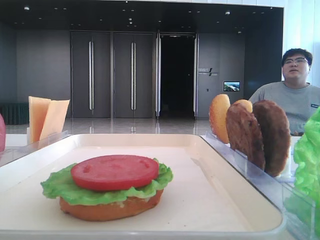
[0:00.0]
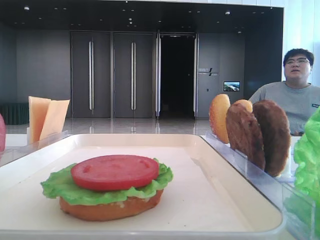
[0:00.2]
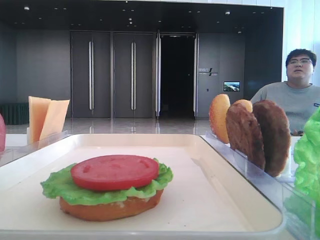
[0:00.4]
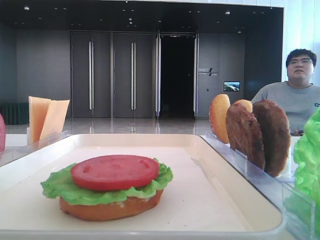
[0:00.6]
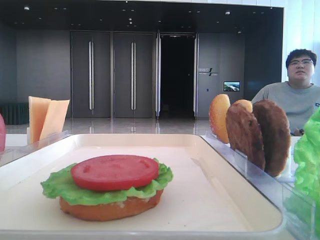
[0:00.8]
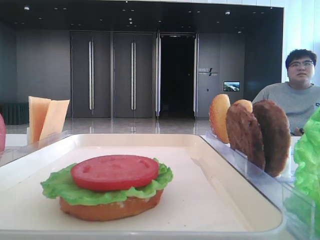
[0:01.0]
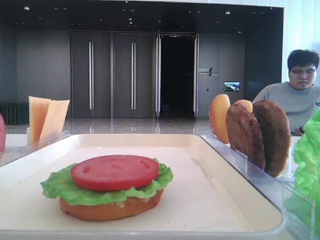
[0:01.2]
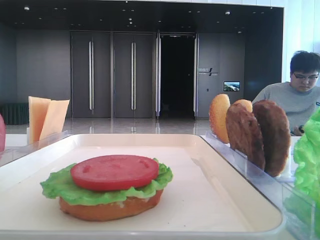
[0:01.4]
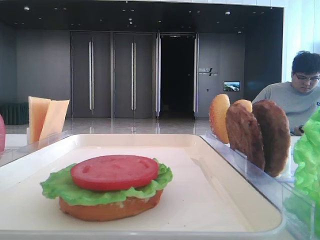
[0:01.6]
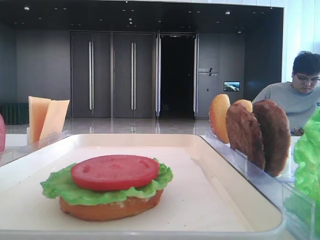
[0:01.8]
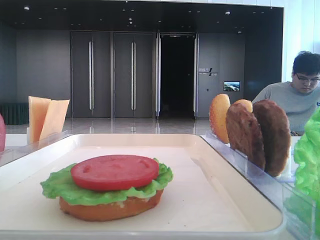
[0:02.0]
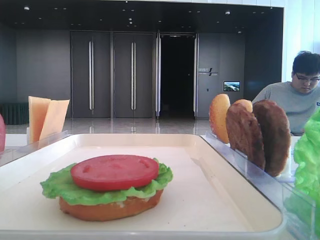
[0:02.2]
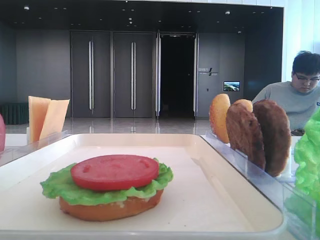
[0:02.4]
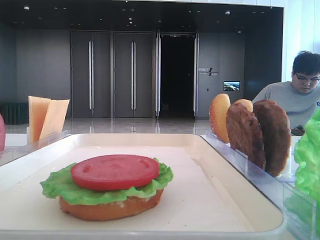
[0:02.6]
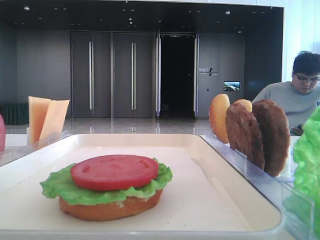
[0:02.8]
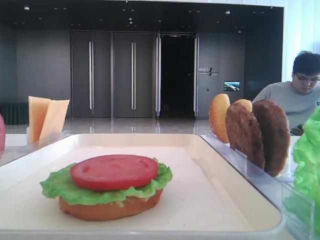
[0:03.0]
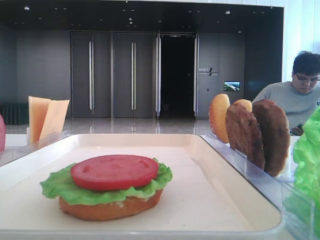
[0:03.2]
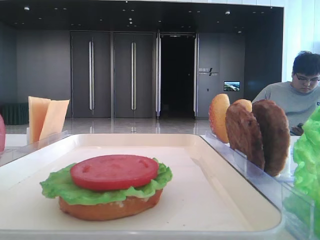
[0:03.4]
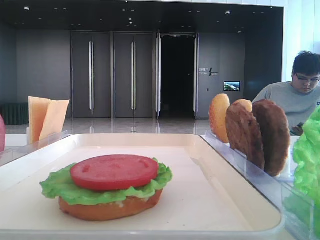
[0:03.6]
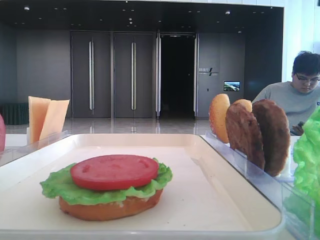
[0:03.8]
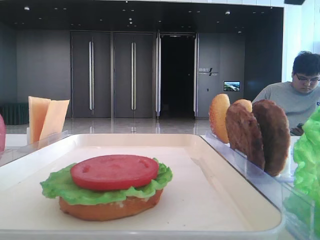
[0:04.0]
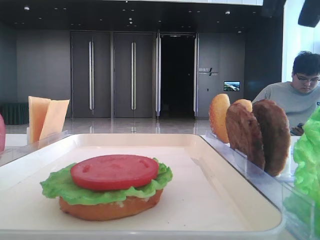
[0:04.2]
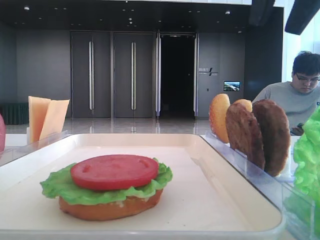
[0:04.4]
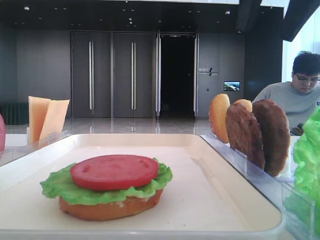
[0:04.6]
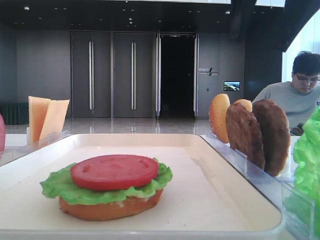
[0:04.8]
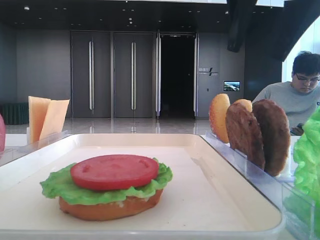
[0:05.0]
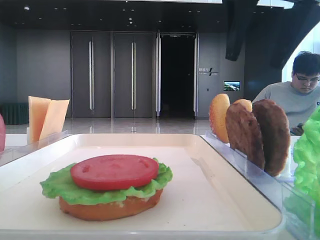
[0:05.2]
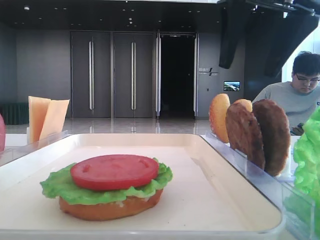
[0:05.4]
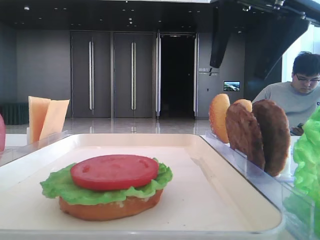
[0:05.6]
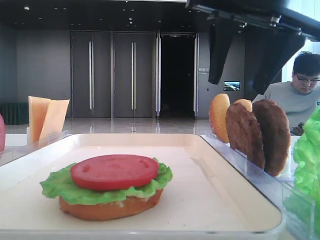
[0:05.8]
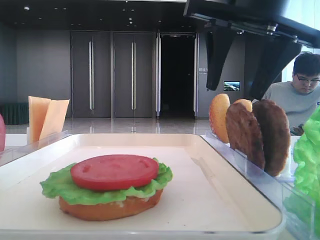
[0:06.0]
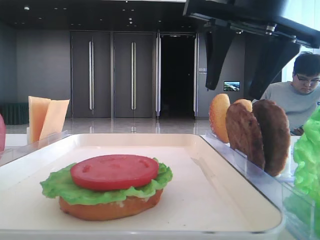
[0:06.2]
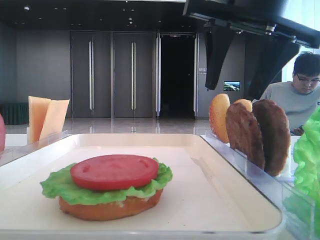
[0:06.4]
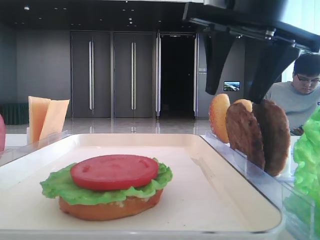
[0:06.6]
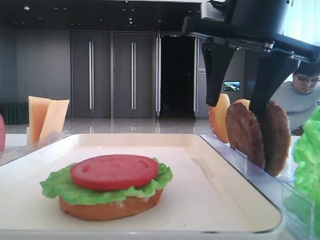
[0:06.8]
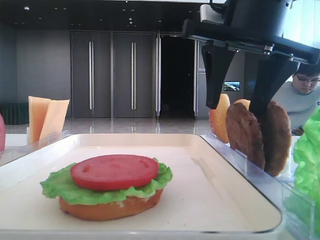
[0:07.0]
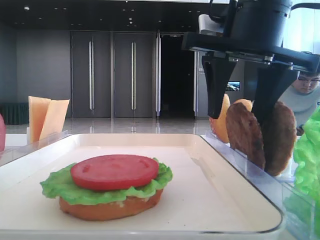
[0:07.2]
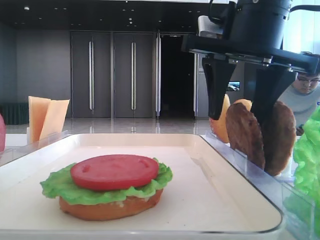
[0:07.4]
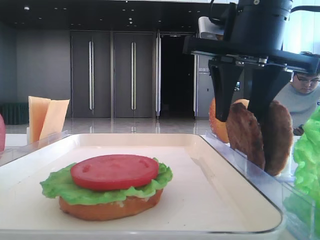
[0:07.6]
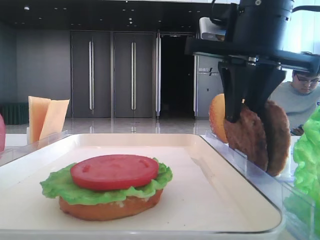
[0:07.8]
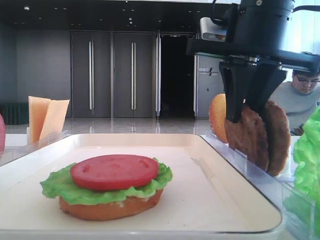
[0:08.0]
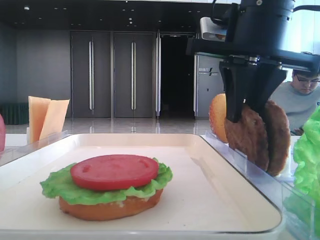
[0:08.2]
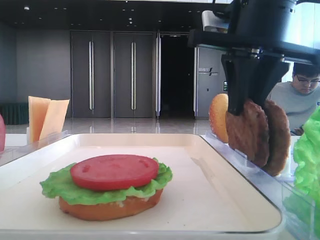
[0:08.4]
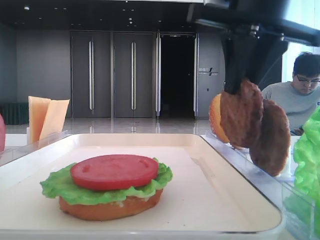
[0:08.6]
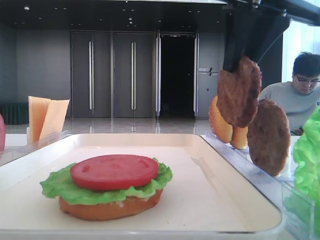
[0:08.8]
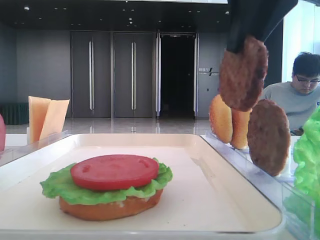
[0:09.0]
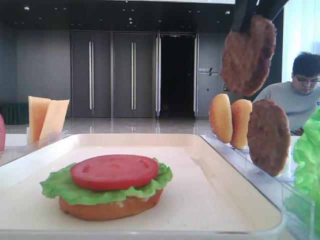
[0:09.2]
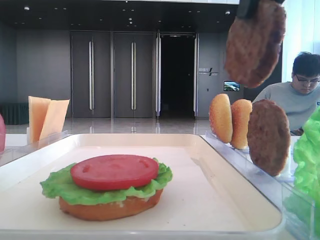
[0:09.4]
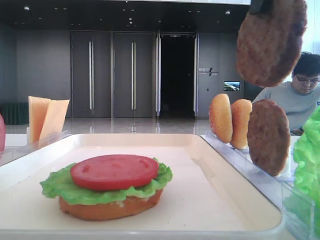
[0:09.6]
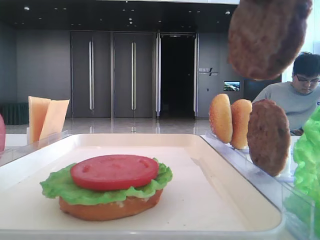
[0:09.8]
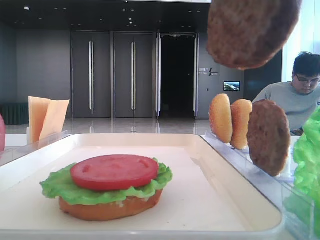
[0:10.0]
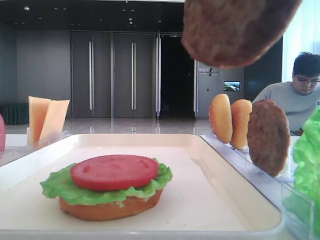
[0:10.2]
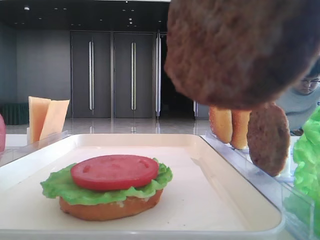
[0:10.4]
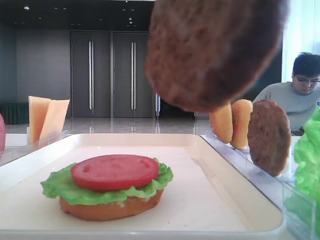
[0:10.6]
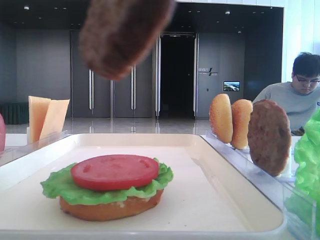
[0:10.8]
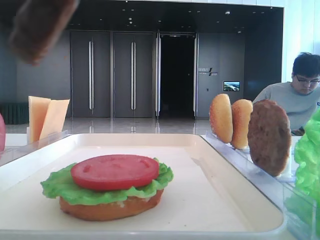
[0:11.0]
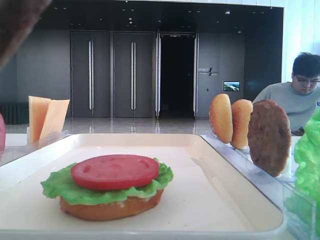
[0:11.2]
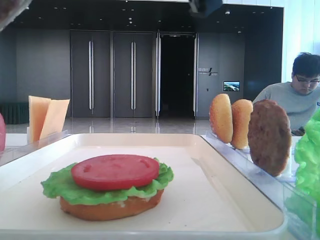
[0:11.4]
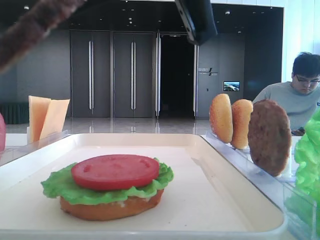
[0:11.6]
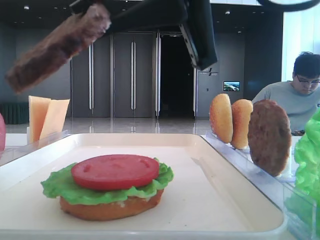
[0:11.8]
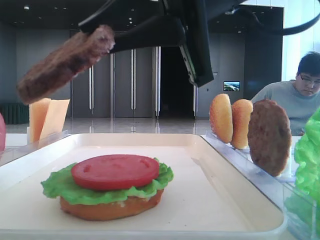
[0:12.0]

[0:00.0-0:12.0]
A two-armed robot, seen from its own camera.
Step, 0:00.0 to 0:07.6: Grab the patty with the right hand.
0:03.0 to 0:04.4: The right gripper travels to the left by approximately 15 cm.
0:04.4 to 0:06.0: The right gripper is displaced downward by some 5 cm.
0:06.0 to 0:07.6: There are only small adjustments of the grippers.
0:07.6 to 0:09.0: The right gripper moves upward, some 5 cm, and closes.
0:09.0 to 0:10.4: The right gripper travels backward by about 15 cm.
0:10.4 to 0:12.0: The right gripper is displaced forward and downward by roughly 15 cm.

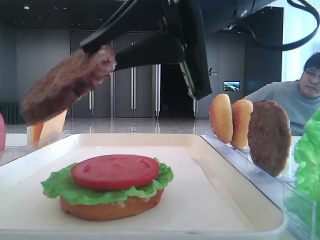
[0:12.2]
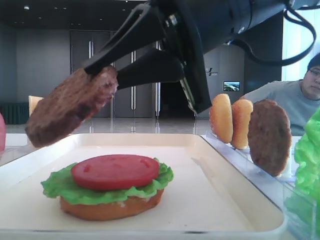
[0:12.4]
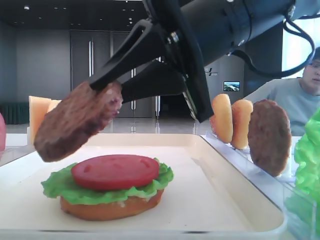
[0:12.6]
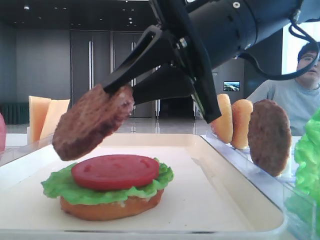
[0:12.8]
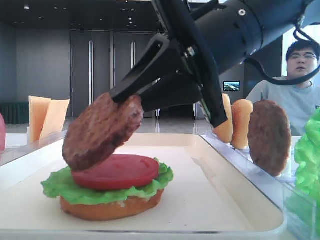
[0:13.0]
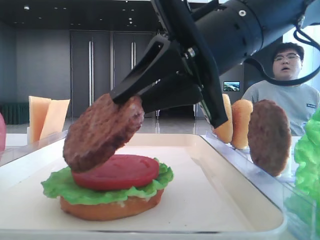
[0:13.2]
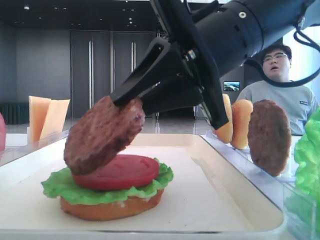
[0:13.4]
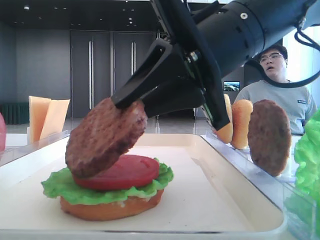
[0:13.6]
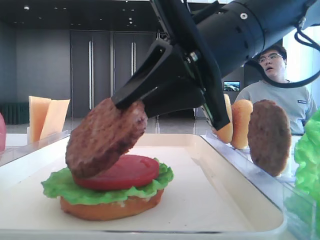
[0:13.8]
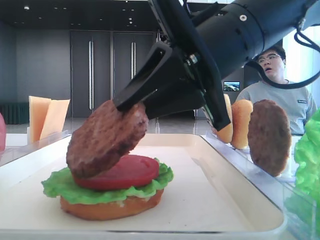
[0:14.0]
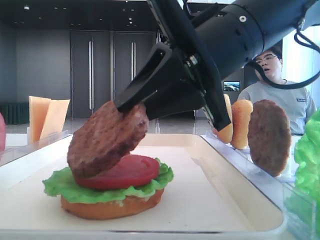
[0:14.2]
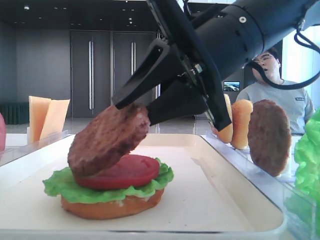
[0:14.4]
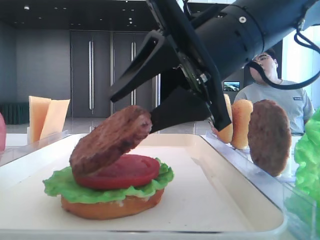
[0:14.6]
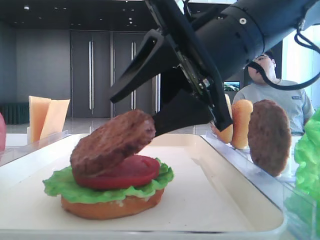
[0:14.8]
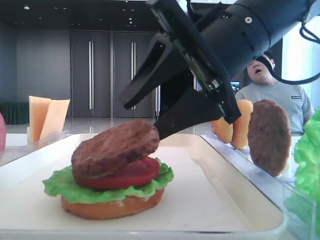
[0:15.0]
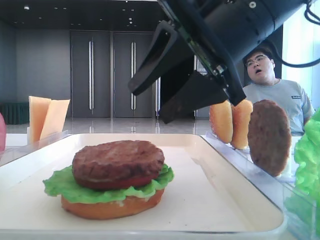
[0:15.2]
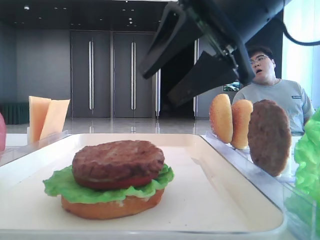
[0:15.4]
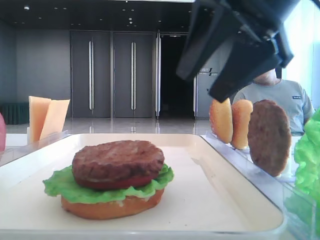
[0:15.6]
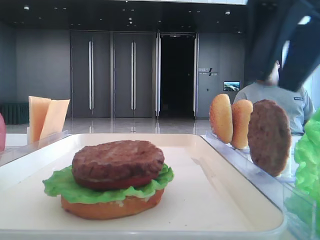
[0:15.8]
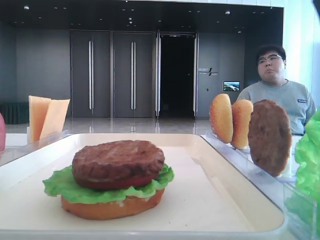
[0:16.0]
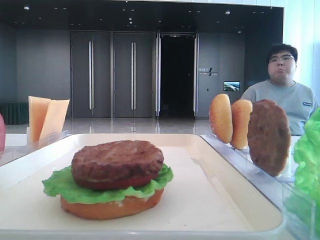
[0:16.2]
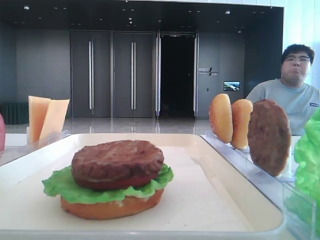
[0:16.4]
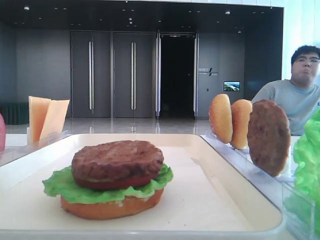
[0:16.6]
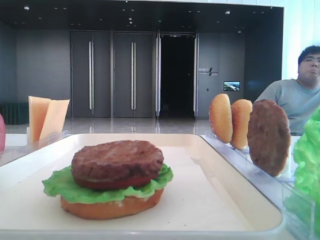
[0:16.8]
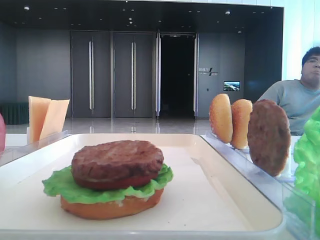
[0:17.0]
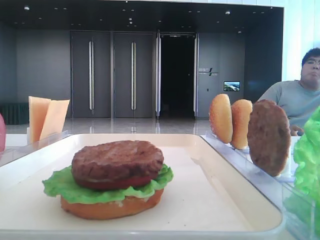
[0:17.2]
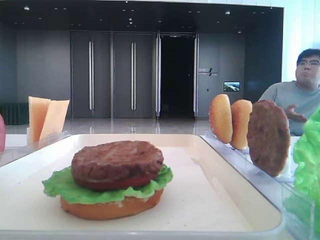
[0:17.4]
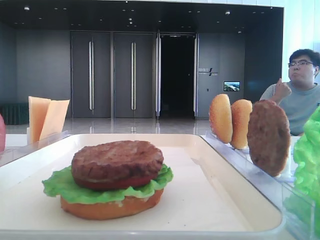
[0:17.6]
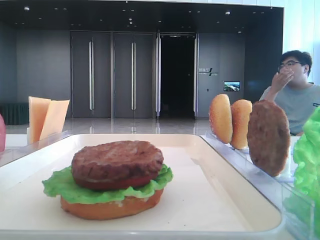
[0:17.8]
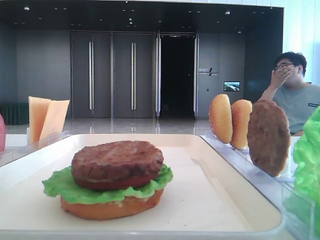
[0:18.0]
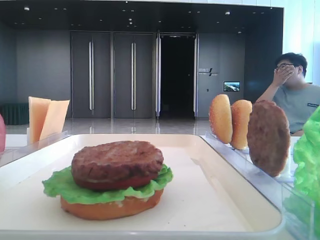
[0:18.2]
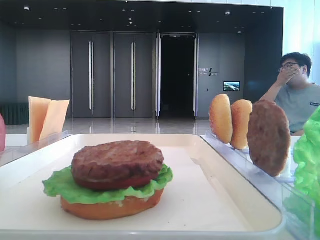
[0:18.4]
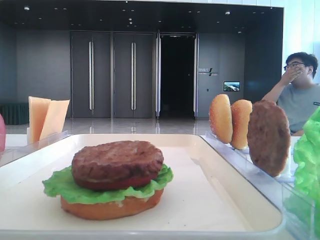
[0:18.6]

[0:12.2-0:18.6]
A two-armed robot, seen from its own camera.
Step, 0:12.2 to 0:15.0: Place the patty on the tomato slice with the right hand.
0:13.8 to 0:15.4: The right gripper opens up.
0:15.4 to 0:17.0: The right gripper heads to the right and upward, covering approximately 25 cm.
0:17.0 to 0:18.6: The right gripper is displaced backward by about 20 cm.

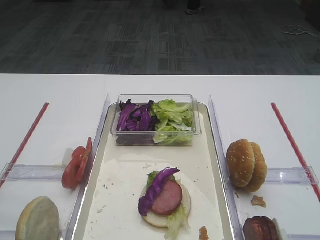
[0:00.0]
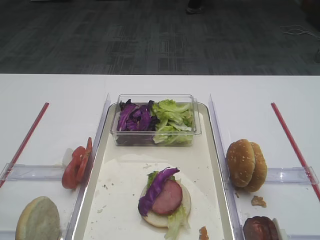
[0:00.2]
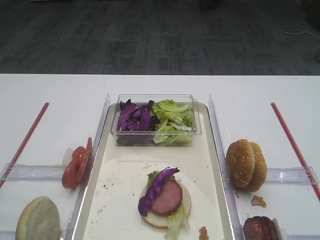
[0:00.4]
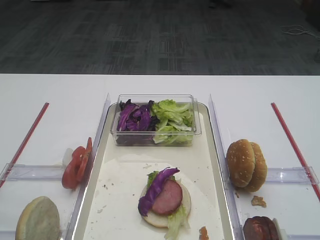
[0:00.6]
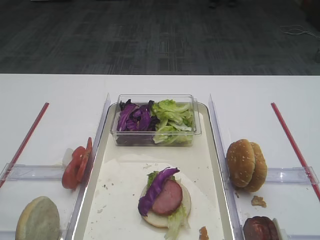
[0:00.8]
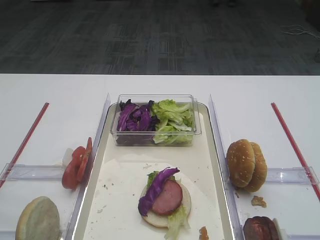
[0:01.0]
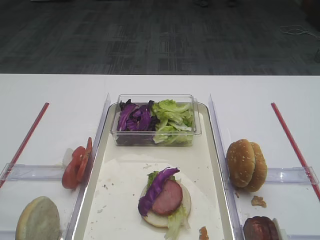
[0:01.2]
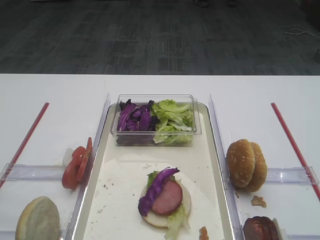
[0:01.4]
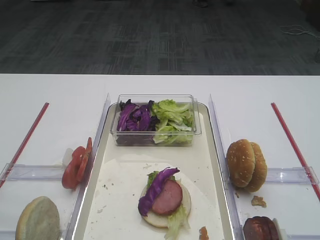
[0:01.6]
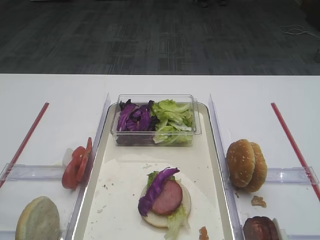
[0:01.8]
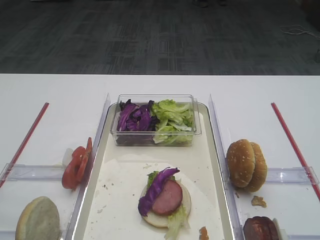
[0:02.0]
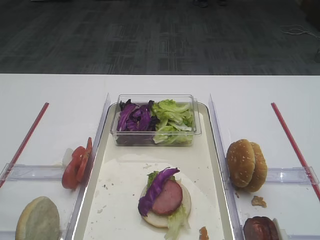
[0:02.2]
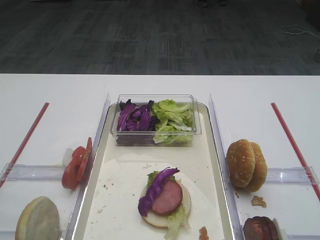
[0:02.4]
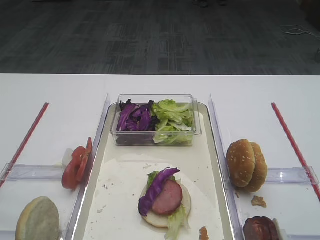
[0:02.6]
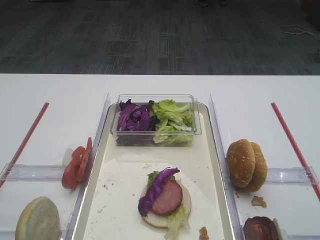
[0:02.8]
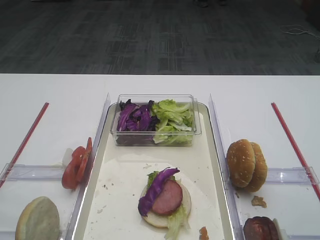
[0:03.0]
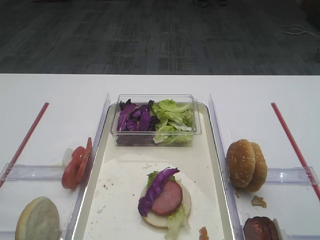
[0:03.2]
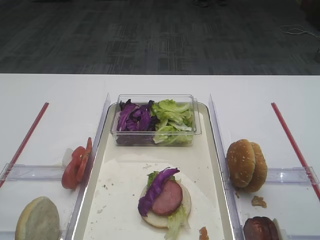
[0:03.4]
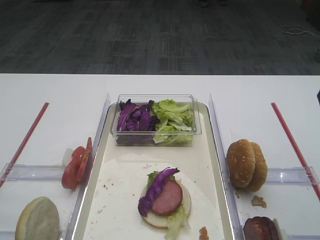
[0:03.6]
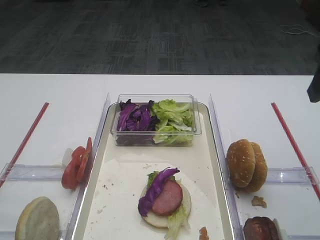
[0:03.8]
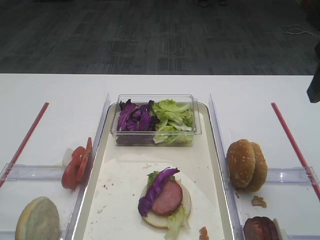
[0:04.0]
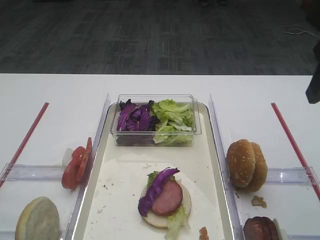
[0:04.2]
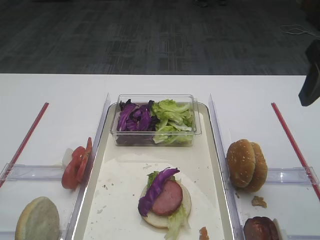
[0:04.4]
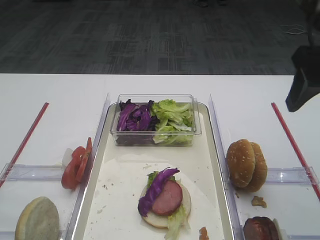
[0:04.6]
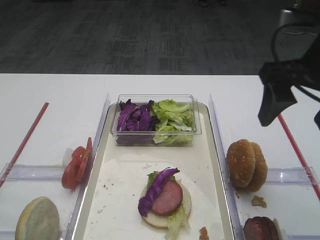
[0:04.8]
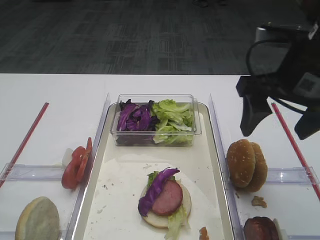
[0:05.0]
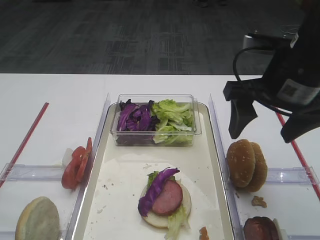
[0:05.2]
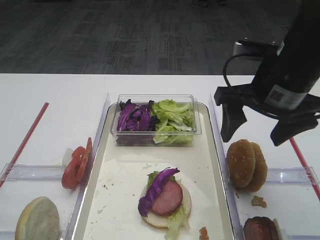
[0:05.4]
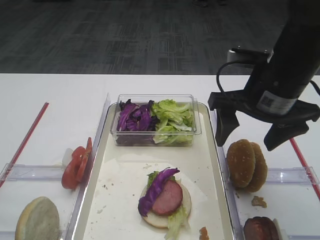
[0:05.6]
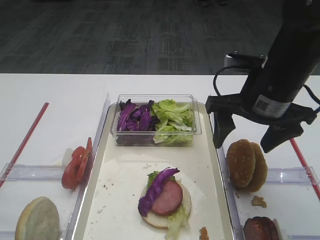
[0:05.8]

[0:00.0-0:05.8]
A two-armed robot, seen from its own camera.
0:02.8 to 0:04.4: The right gripper moves forward, about 15 cm.
0:04.4 to 0:05.8: The right gripper shifts roughly 15 cm to the left and downward.
